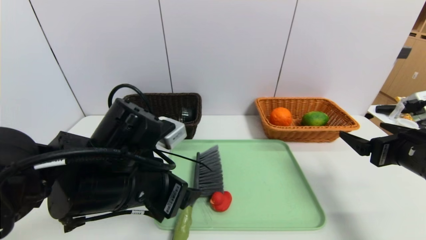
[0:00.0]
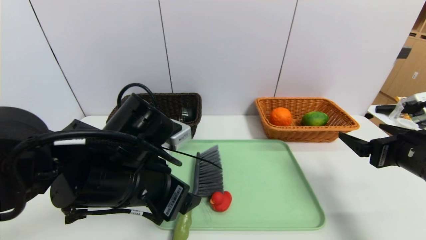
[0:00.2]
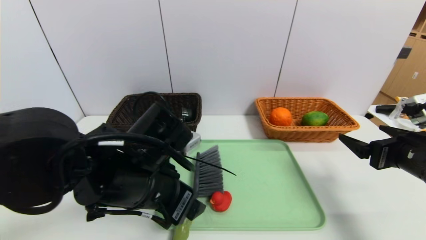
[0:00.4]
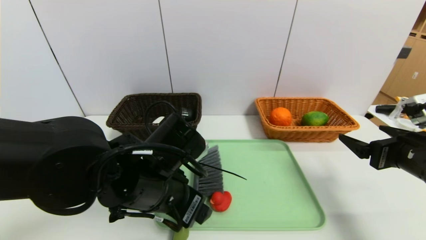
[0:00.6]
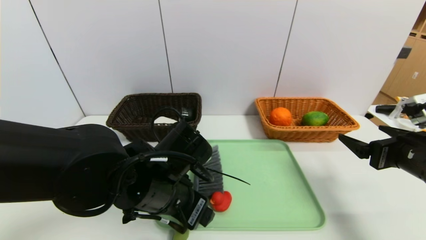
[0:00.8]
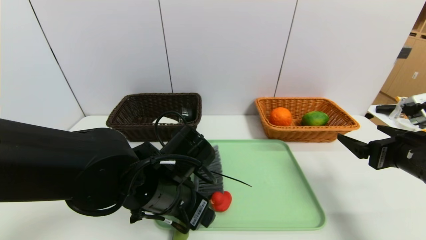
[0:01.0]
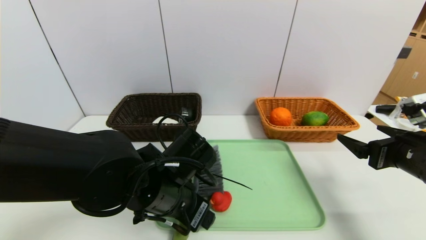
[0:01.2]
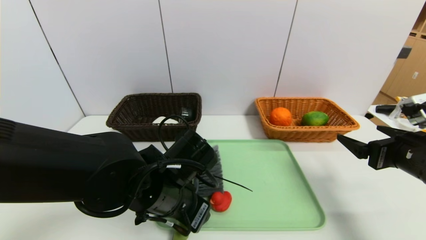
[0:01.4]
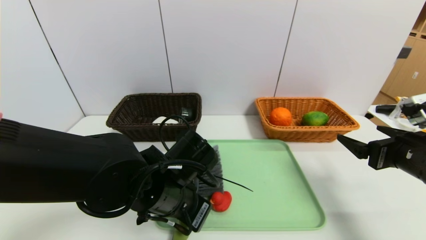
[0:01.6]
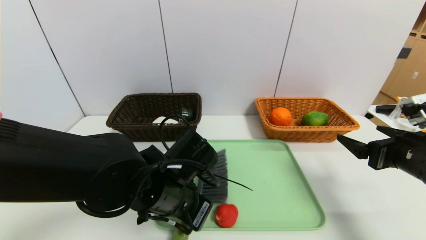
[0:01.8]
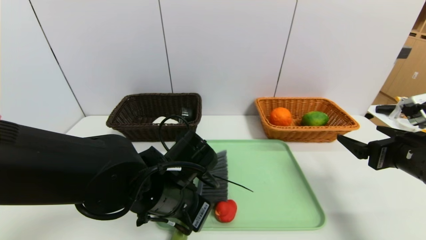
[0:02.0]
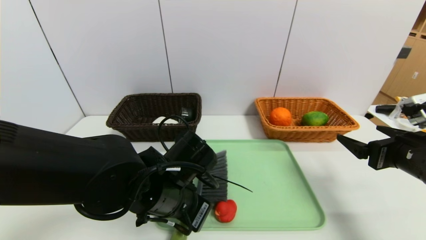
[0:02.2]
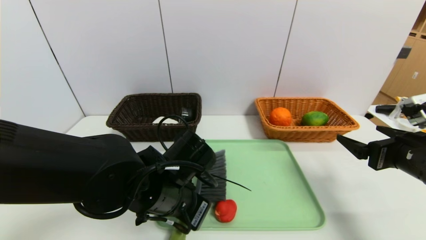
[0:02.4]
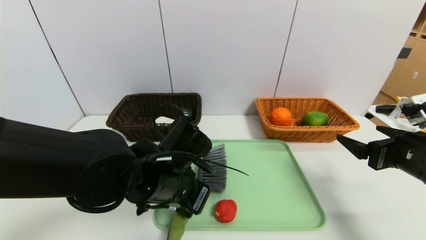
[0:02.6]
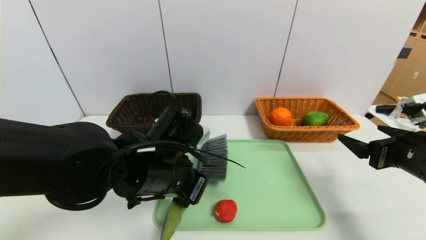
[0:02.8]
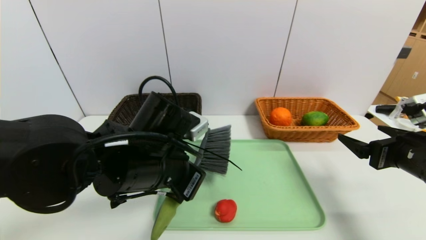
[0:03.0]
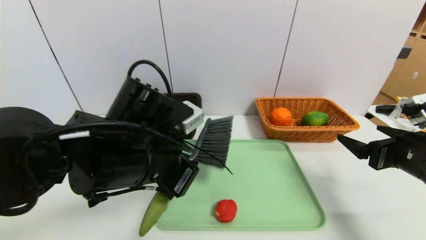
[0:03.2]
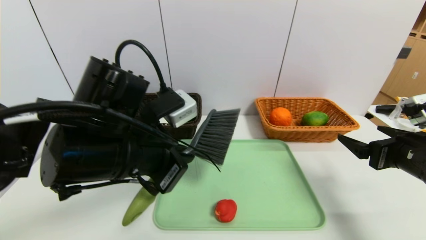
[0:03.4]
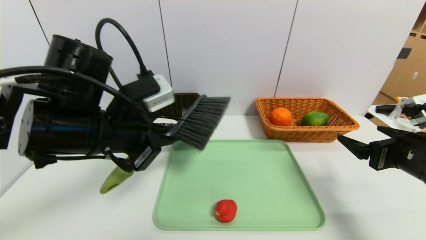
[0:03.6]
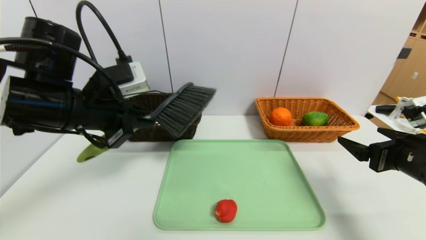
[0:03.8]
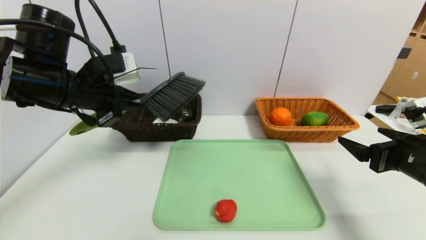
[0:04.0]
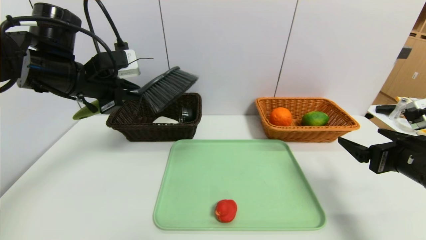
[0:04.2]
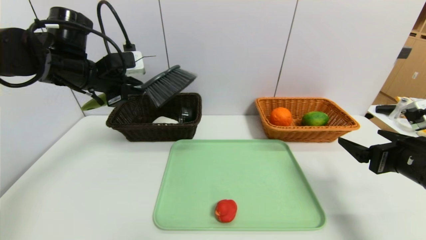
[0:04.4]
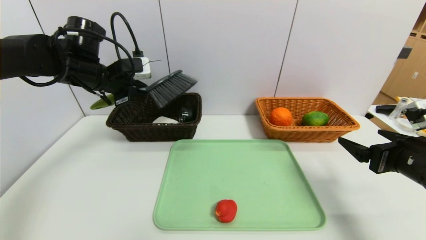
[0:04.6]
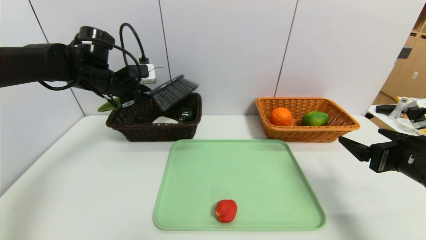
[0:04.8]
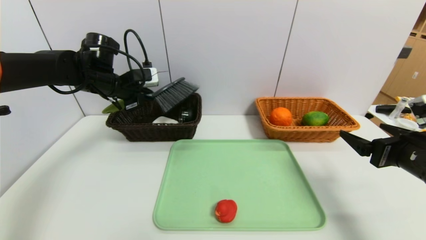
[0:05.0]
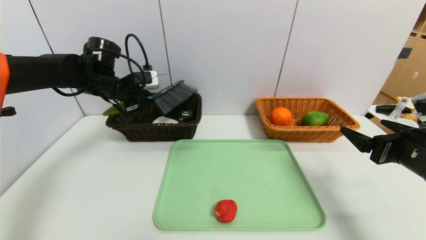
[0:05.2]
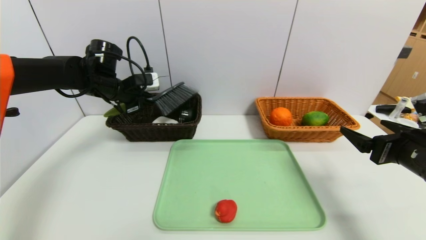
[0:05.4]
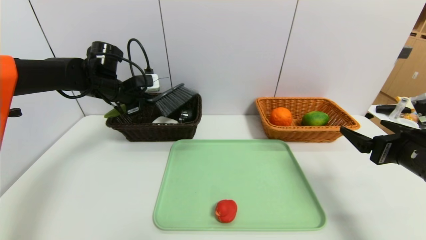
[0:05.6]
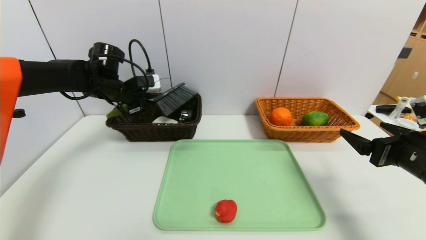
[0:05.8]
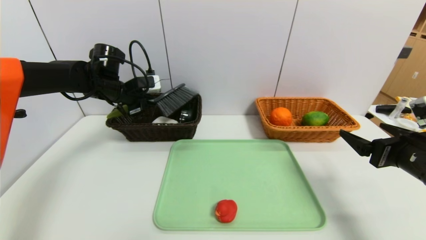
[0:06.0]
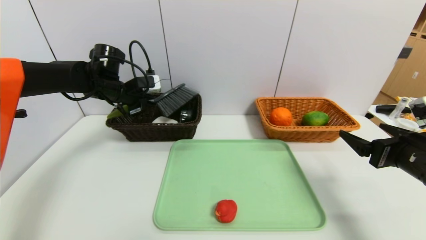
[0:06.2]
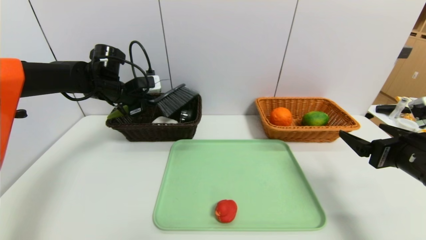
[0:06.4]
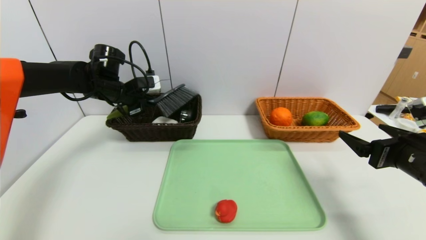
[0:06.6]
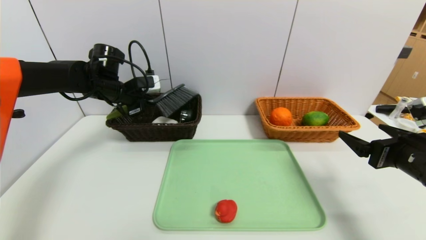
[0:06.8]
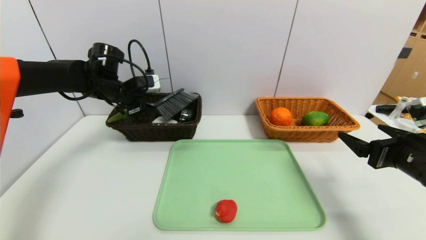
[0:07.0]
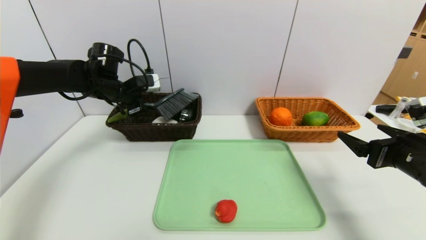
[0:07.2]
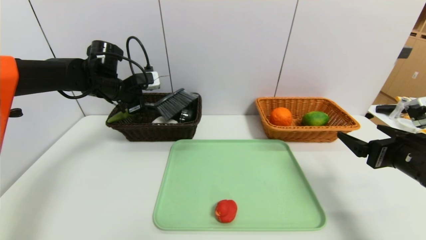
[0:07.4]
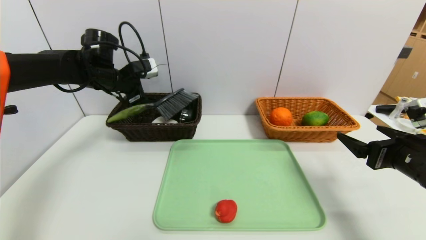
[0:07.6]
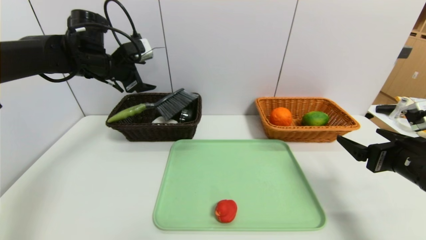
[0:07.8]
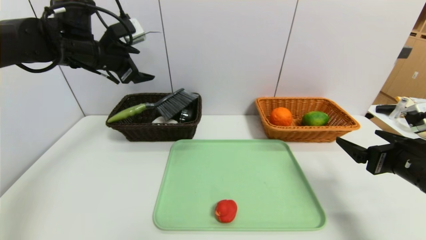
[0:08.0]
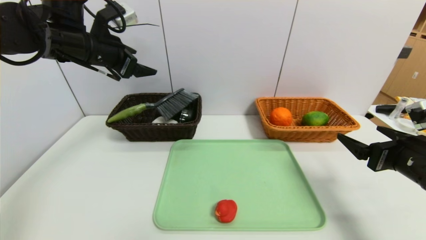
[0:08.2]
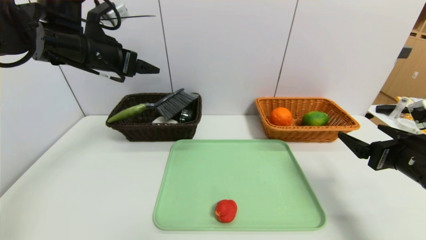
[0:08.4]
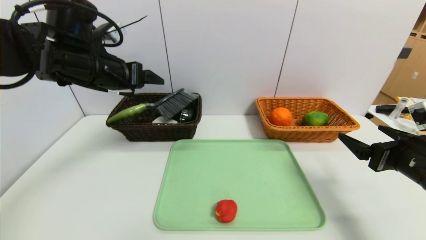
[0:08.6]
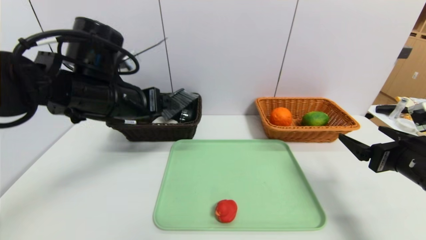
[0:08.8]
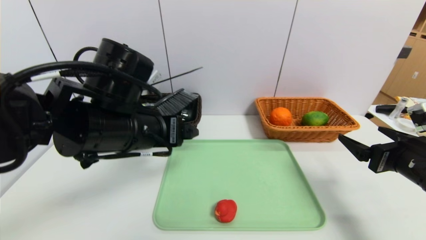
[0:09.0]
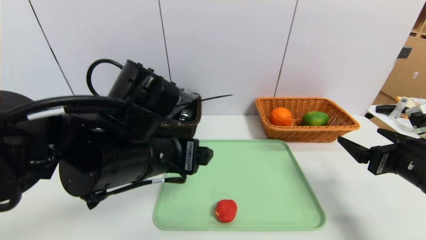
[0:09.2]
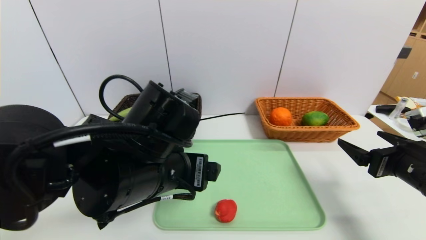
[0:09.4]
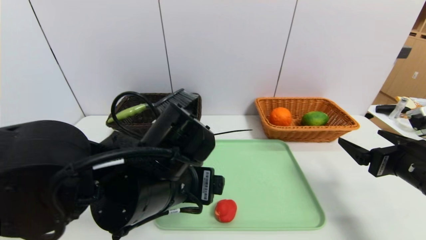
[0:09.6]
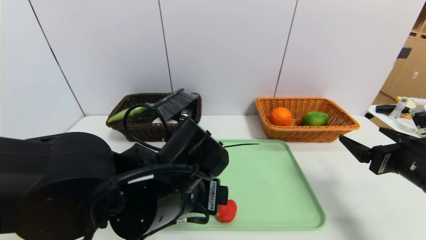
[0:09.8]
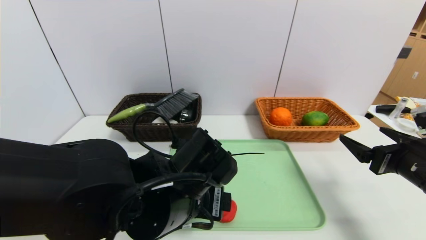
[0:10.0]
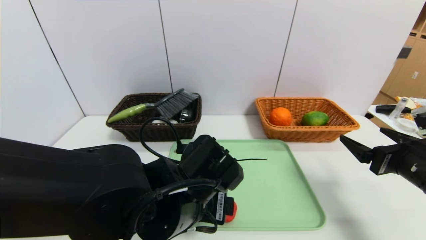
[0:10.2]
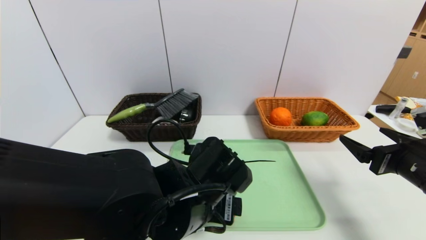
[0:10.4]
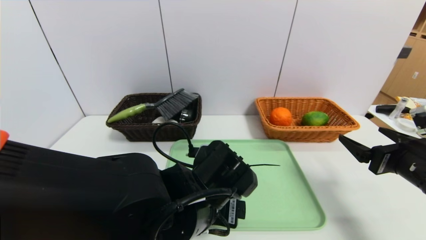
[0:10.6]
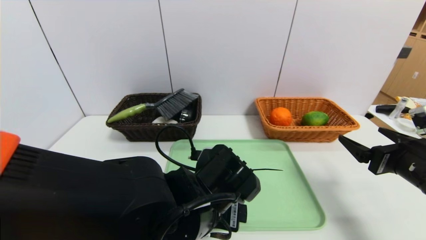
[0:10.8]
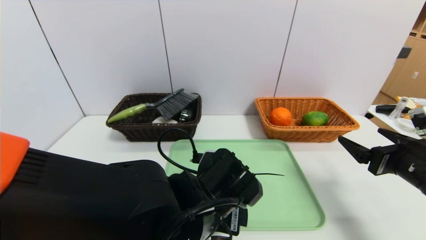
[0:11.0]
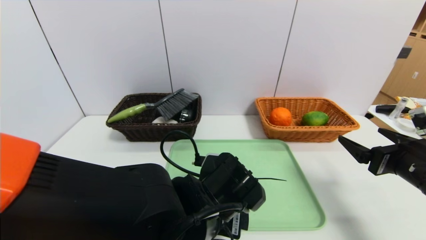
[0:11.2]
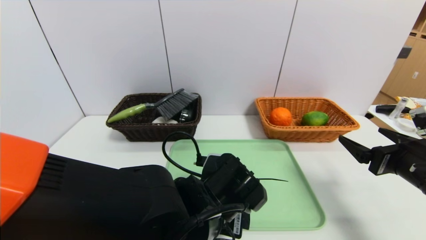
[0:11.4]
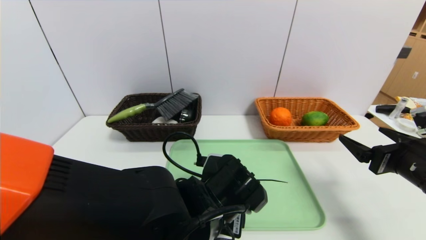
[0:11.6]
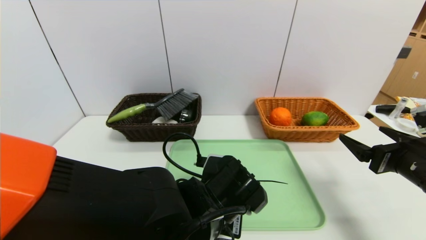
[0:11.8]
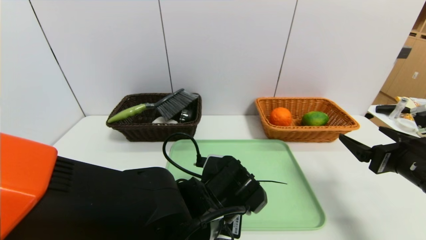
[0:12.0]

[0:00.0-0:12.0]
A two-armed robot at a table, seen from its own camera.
Task of the whole recording: place the food in the right basket with the right gripper, and place the non food items in the left basket with the left gripper.
Step, 0:00.0 to 0:07.2: Grasp the brush and put it in the left basket.
0:00.0 to 0:01.6: The left gripper travels downward by roughly 5 cm, and closes.
0:01.6 to 0:03.0: The left gripper moves upward, some 5 cm, and closes its fingers.
0:03.0 to 0:04.4: The left gripper shifts approximately 25 cm to the left, forward and upward.
0:04.4 to 0:06.0: The left gripper is displaced forward and downward by roughly 10 cm.
0:06.0 to 0:07.6: The left gripper opens.
0:07.6 to 0:09.0: The left gripper goes approximately 25 cm backward and to the right.
0:09.0 to 0:10.4: The left gripper heads downward and to the right, covering some 15 cm.
0:10.4 to 0:12.0: The left gripper closes up.

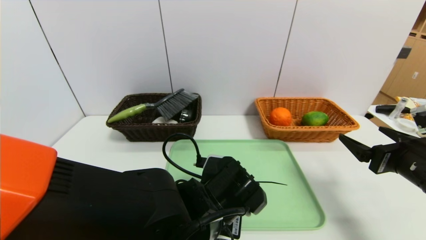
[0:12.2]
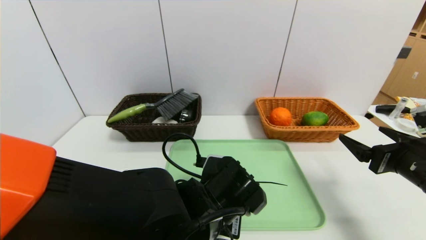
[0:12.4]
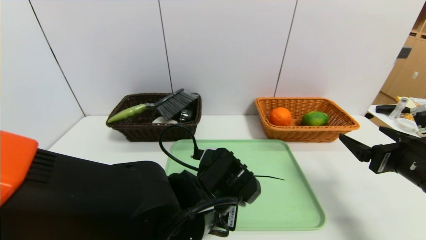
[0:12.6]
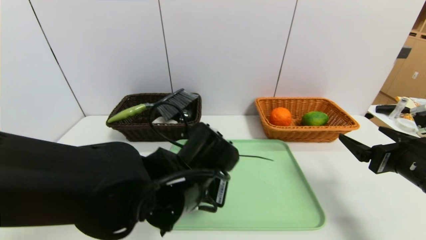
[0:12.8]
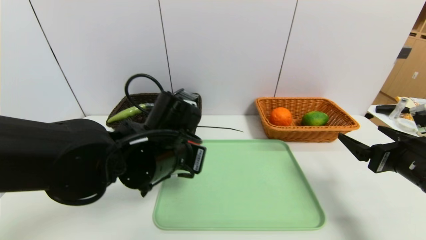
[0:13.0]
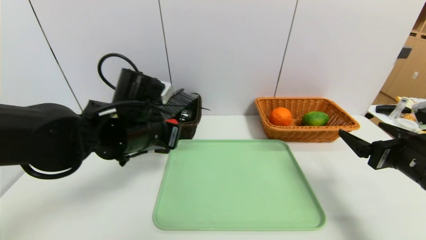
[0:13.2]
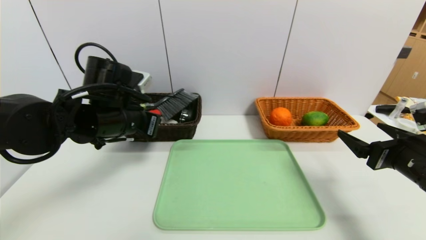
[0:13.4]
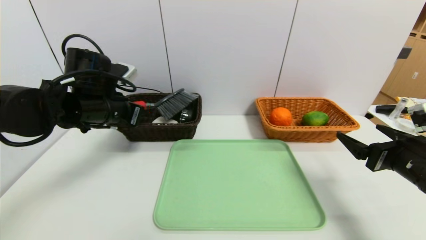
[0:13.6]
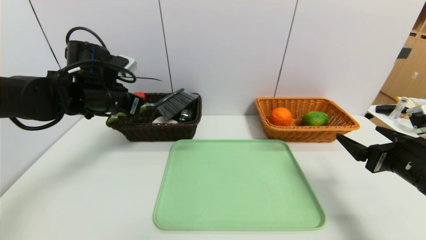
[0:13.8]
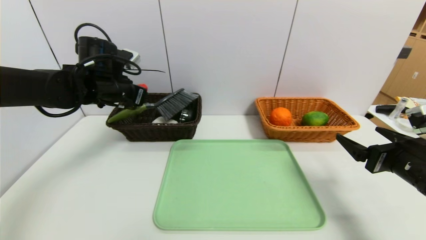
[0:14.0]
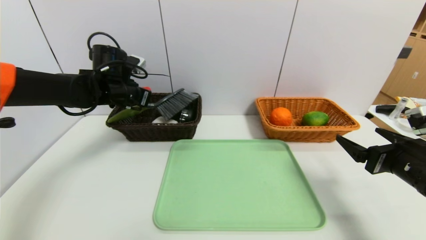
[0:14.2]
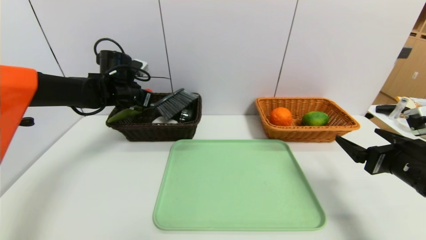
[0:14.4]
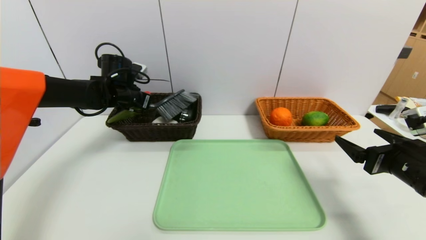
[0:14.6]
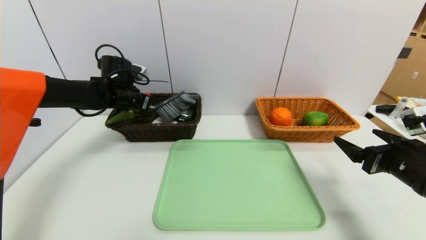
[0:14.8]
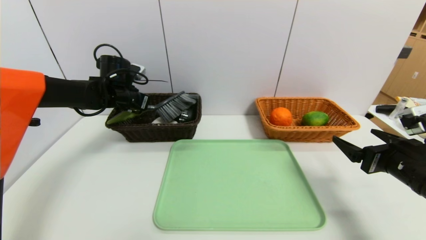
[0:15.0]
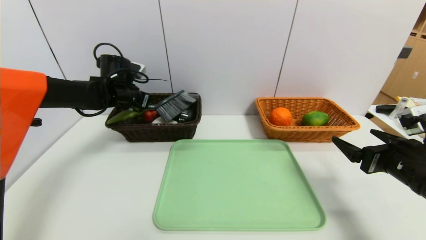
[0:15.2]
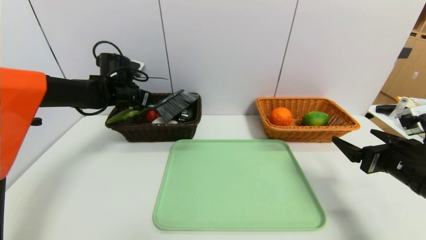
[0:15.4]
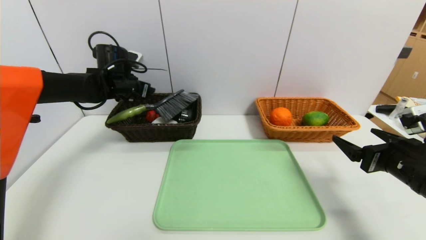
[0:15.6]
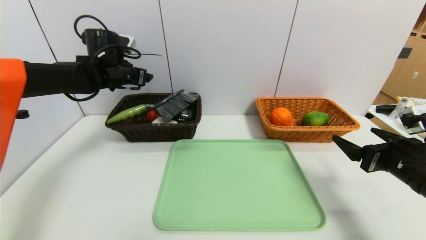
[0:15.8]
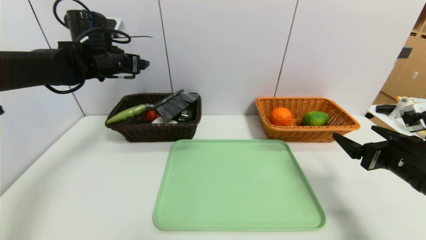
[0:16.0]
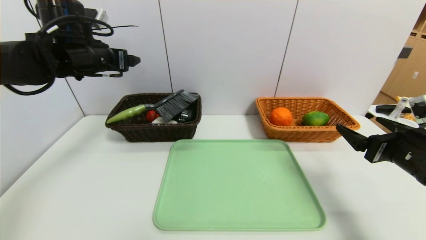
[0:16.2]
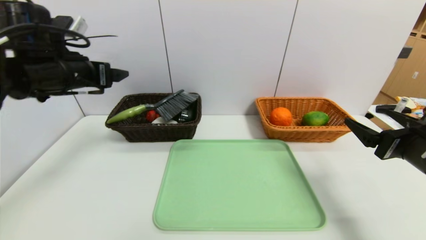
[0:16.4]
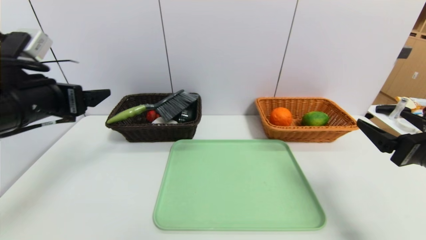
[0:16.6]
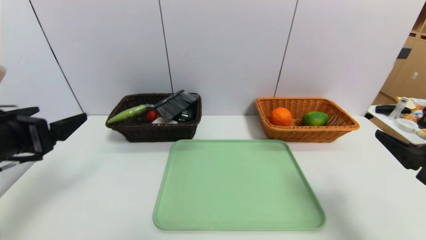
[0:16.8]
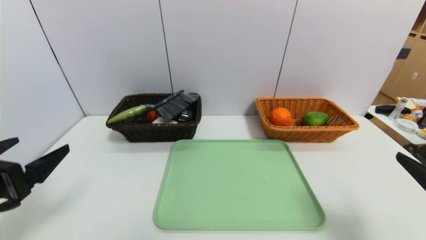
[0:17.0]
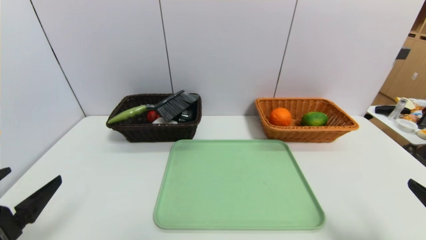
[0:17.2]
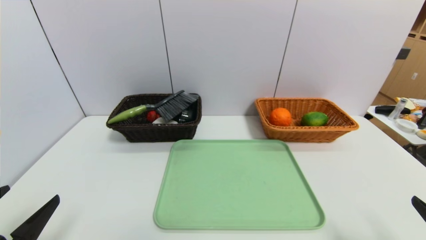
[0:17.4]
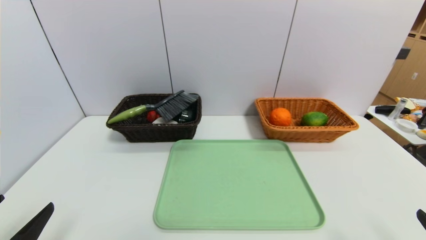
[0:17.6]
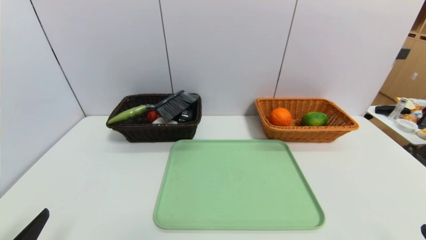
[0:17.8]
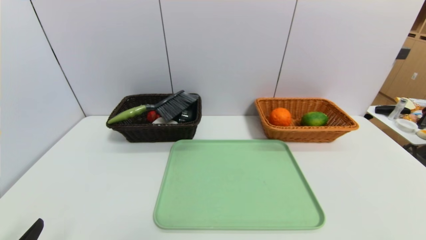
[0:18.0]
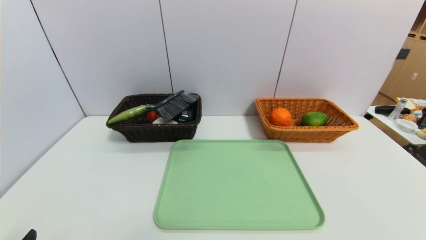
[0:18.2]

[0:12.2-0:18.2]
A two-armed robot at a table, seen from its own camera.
Task of the whole recording: place the food in the right basket with the right gripper, and place the non food items in the left basket with the left gripper.
Step, 0:12.2 to 0:15.8: Grasp the red duck and put it in the left basket.
0:12.2 to 0:13.8: The left gripper heads to the left, forward and upward, covering approximately 30 cm.
0:13.8 to 0:15.2: The left gripper travels forward by roughly 10 cm.
0:15.2 to 0:16.6: The right gripper ends up some 5 cm from where it was, while the left gripper goes some 25 cm backward, and opens.
0:16.6 to 0:18.2: Both grippers move backward and downward, about 25 cm.
